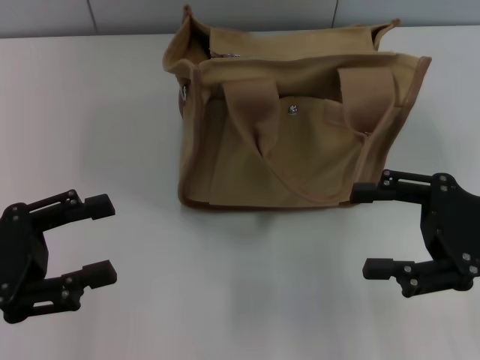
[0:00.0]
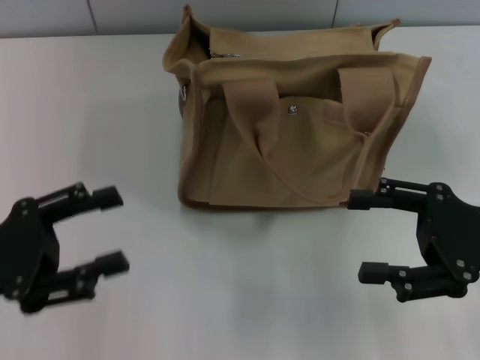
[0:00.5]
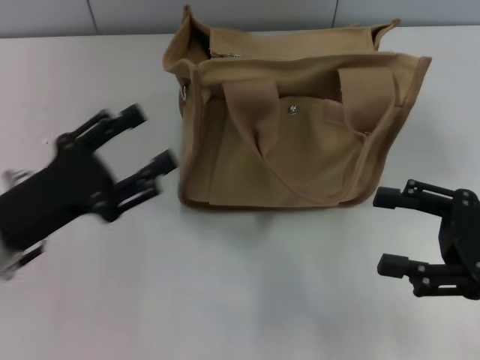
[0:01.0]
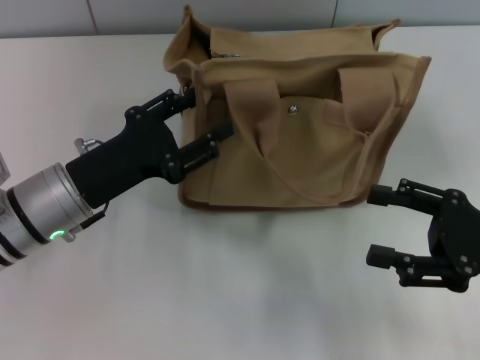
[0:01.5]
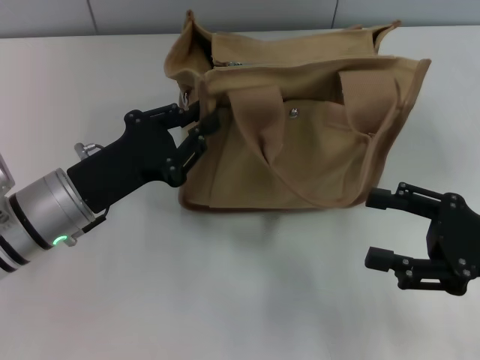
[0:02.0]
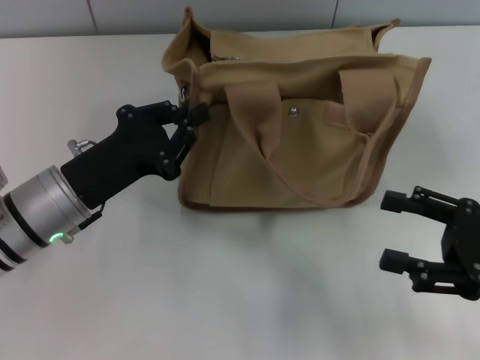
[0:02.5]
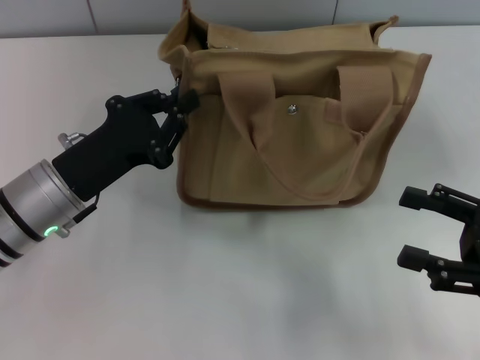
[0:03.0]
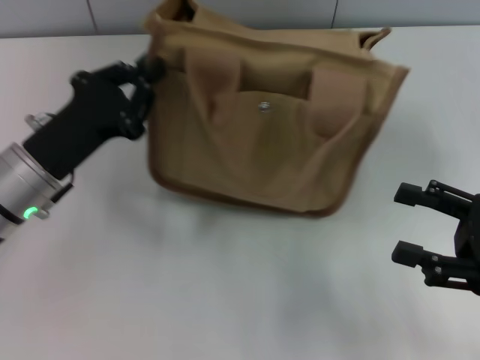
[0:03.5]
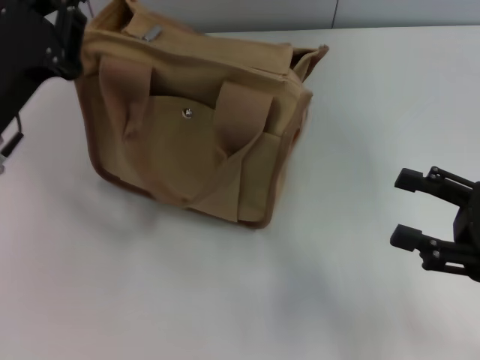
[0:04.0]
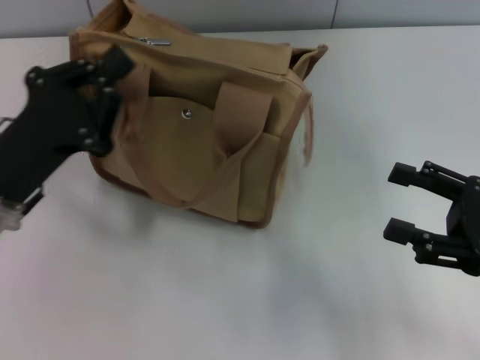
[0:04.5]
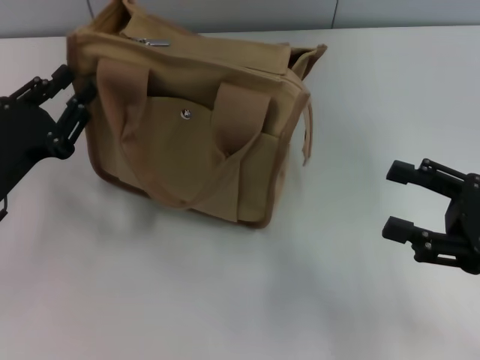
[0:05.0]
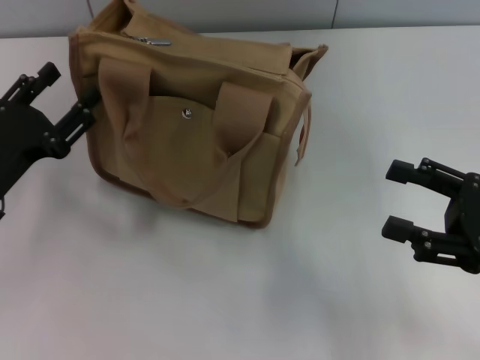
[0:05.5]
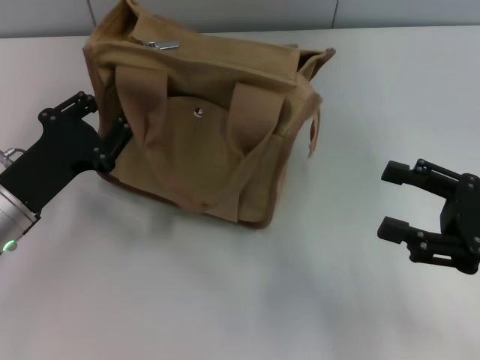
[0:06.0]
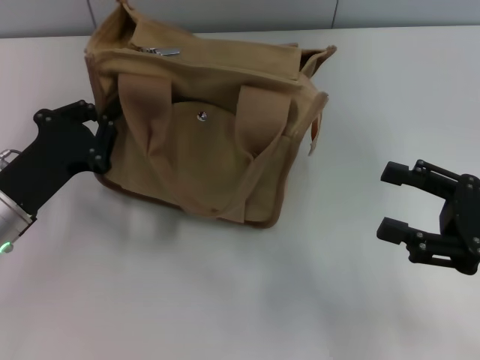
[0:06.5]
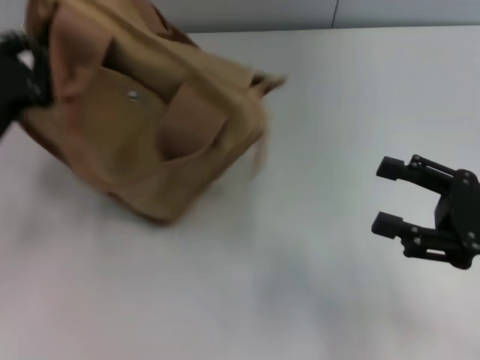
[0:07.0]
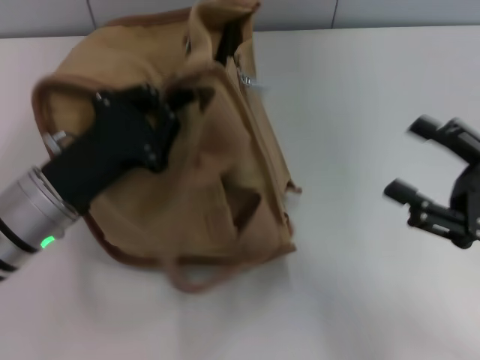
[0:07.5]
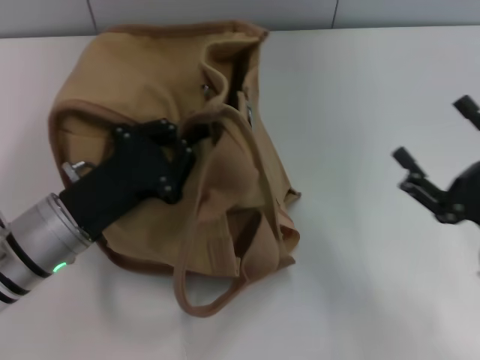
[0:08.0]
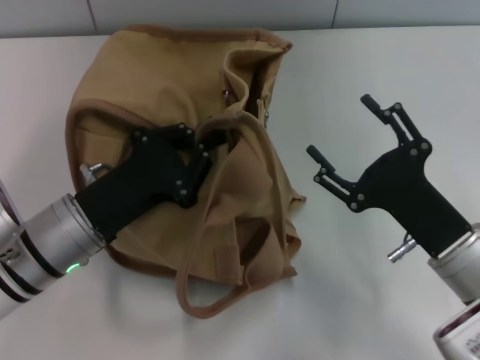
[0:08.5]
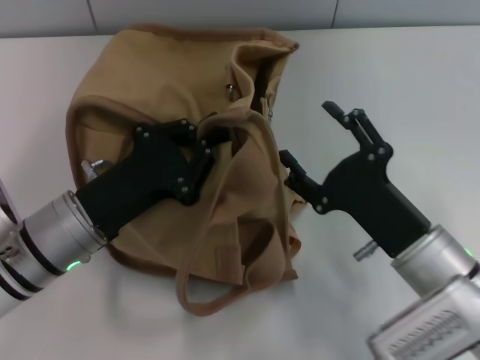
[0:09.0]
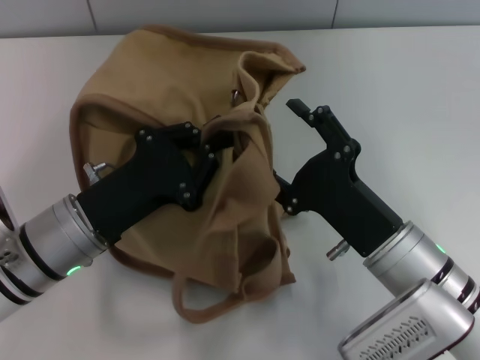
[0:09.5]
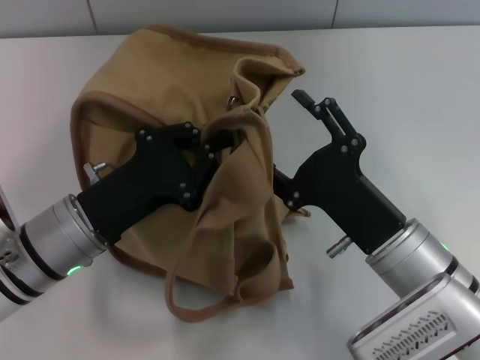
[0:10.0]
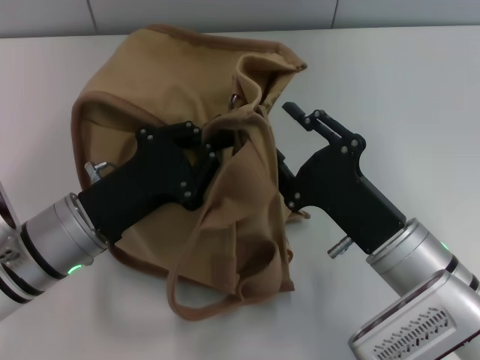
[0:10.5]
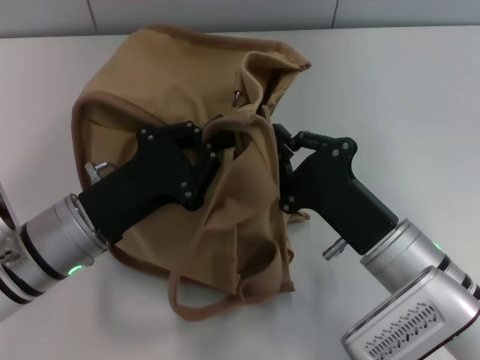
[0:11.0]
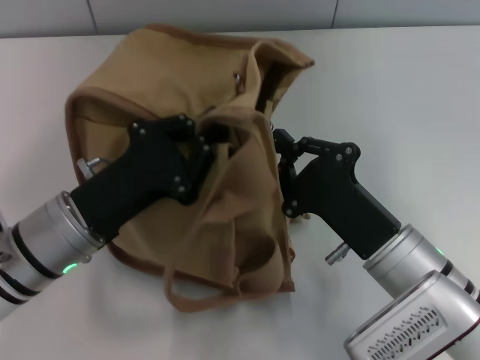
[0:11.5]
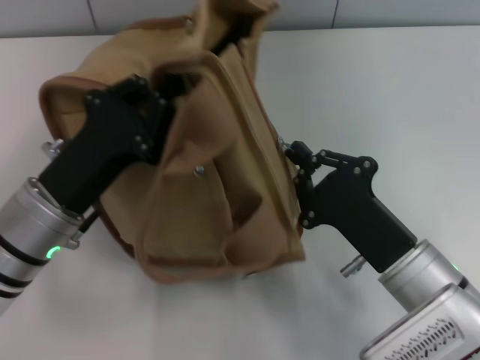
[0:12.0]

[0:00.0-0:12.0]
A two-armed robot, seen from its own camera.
0.0 to 2.0 s: The left gripper travels to the right and forward by about 15 cm, and closes up.
2.0 to 4.0 s: The left gripper heads upward, covering approximately 5 cm, and closes up.
4.0 to 6.0 s: The left gripper goes about 5 cm downward, and opens its fingers.
6.0 to 8.0 s: The right gripper shifts by approximately 5 cm. Meanwhile the left gripper is displaced to the right by some 5 cm, and closes up.
8.0 to 10.0 s: The right gripper moves to the left, approximately 10 cm.
10.0 to 12.0 s: The right gripper closes up.

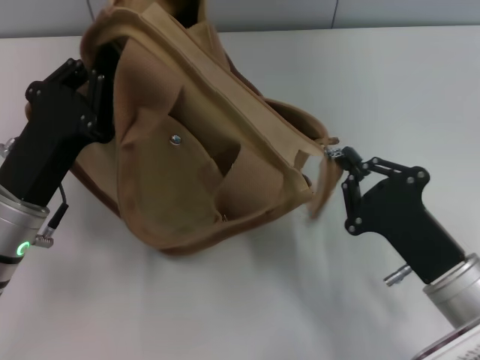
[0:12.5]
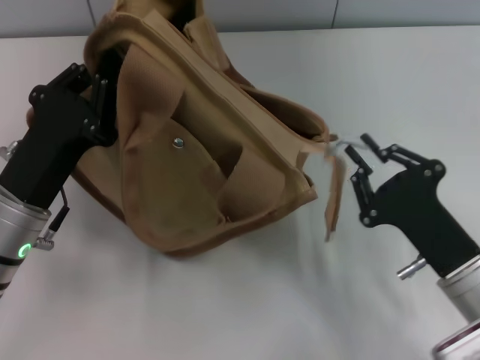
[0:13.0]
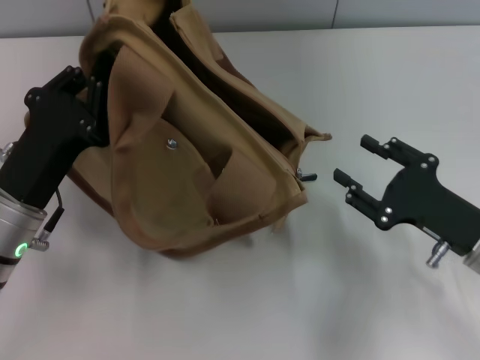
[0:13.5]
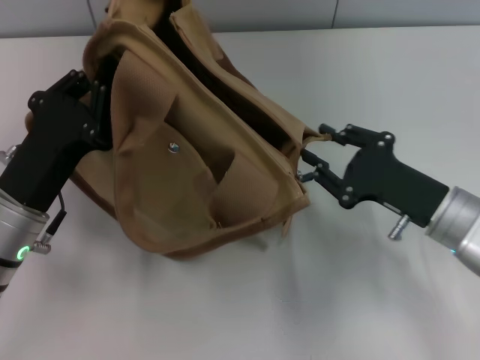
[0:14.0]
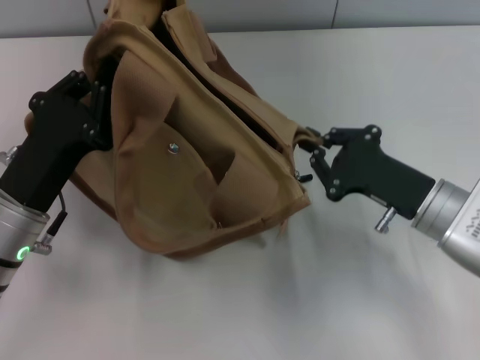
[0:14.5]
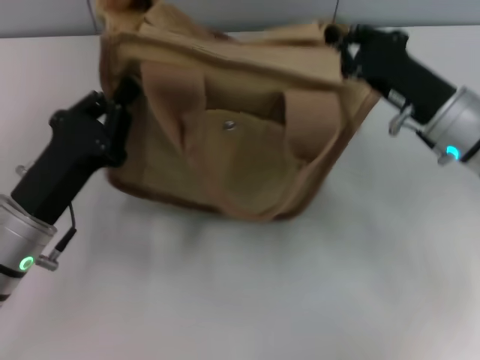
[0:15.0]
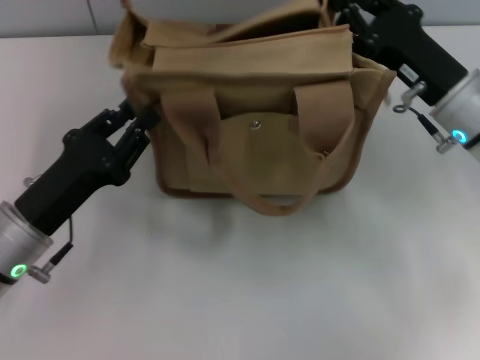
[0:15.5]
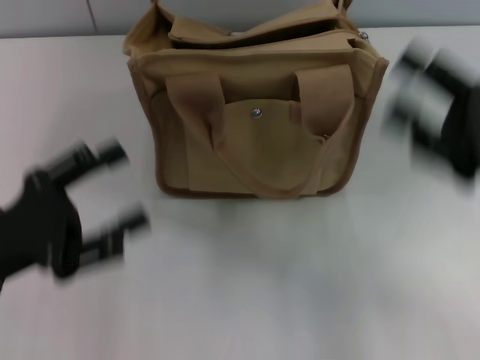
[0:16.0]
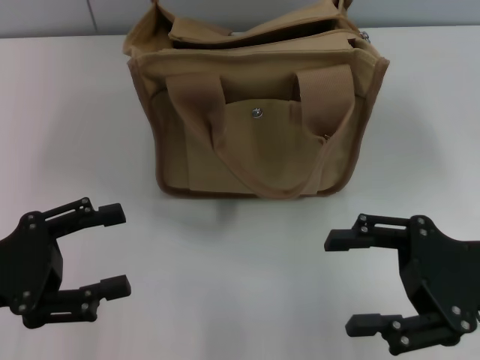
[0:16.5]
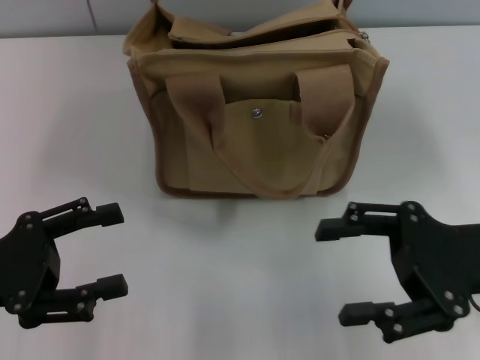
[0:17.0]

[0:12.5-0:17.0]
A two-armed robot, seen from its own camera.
Step, 13.5 to 15.5 s: Grab the bag with your left hand.
12.5 to 14.5 s: The right gripper shifts about 10 cm forward, and opens, then closes once more.
14.5 to 17.0 s: The left gripper travels to the left by approximately 10 cm, and opens. The right gripper heads upward, covering some 10 cm, goes forward and returns, some 5 cm each way, and opens up.

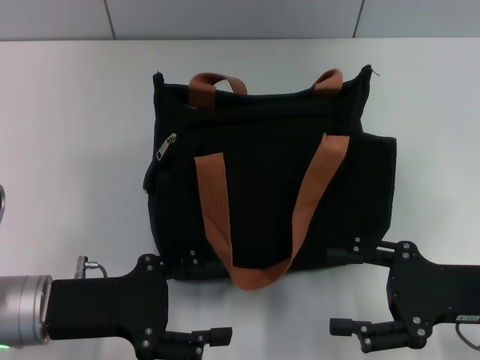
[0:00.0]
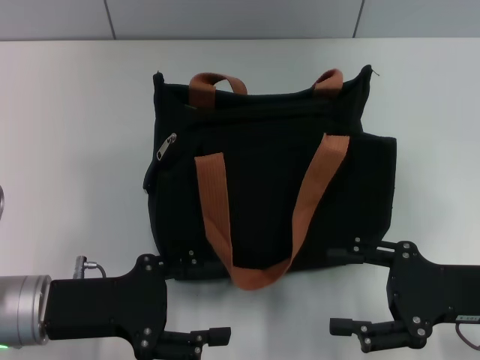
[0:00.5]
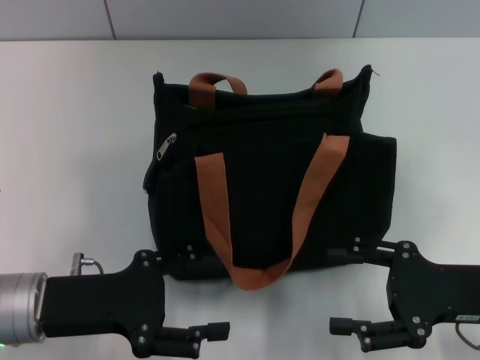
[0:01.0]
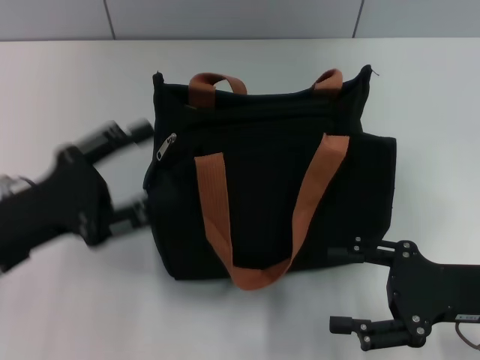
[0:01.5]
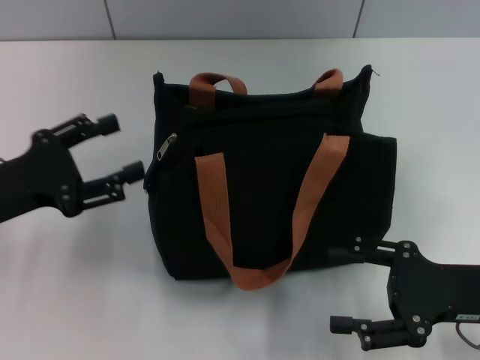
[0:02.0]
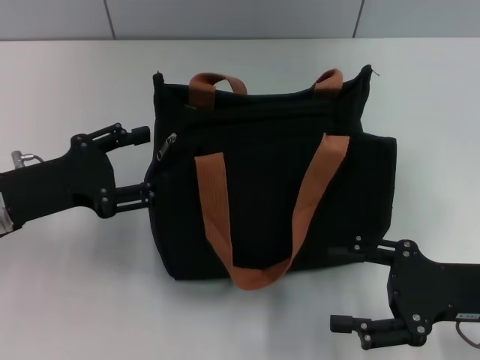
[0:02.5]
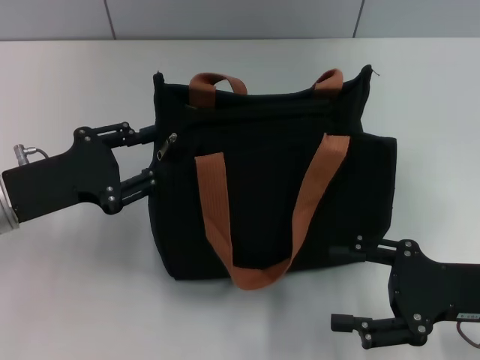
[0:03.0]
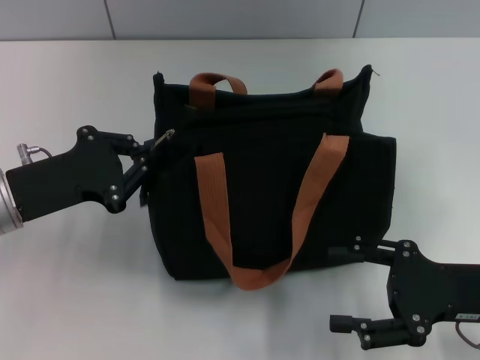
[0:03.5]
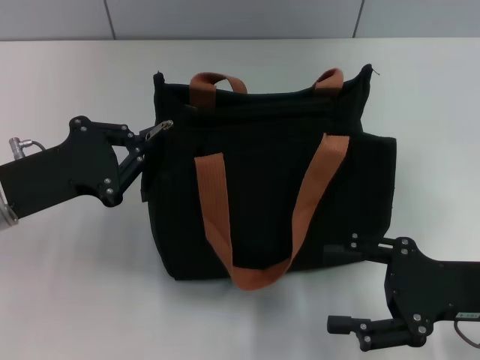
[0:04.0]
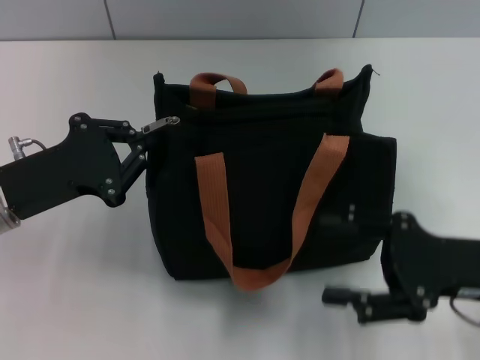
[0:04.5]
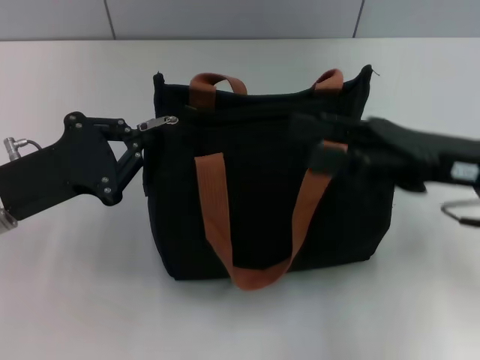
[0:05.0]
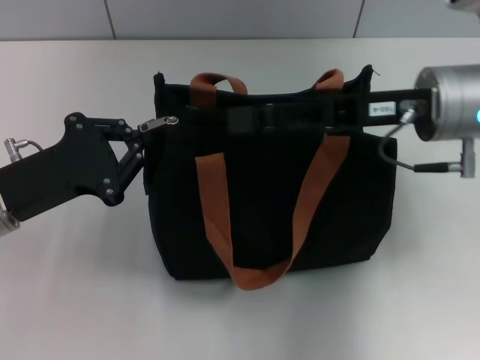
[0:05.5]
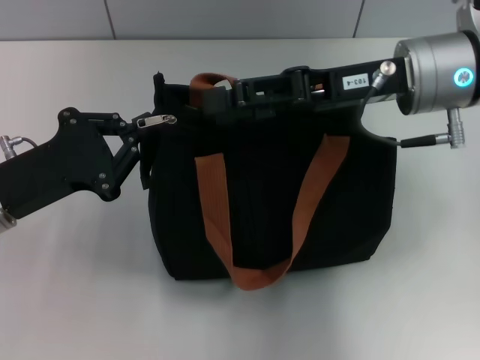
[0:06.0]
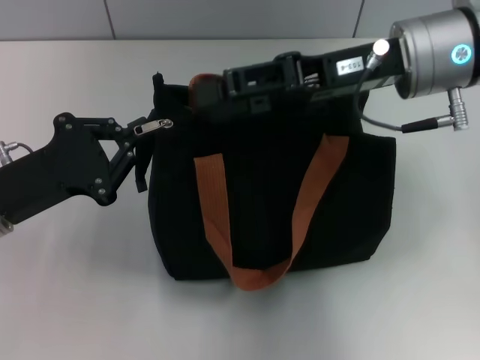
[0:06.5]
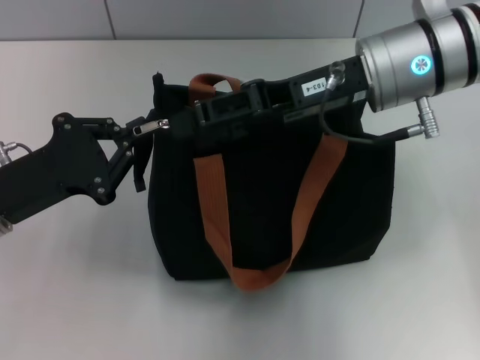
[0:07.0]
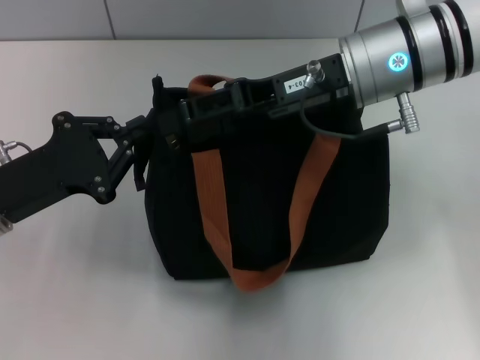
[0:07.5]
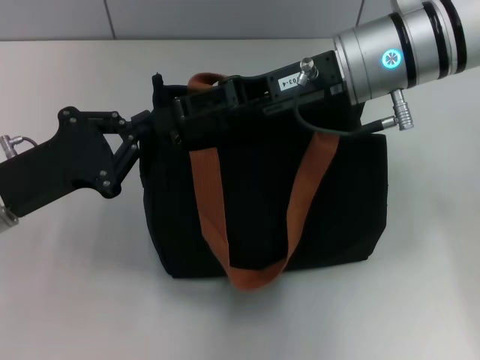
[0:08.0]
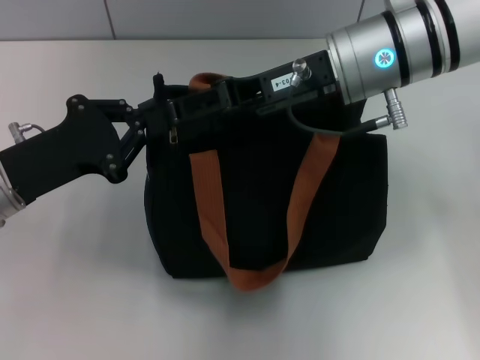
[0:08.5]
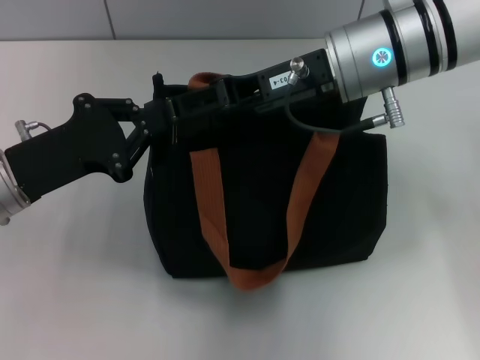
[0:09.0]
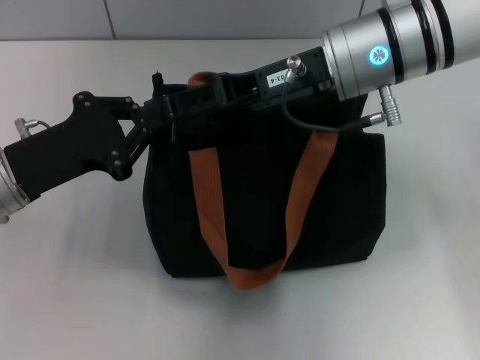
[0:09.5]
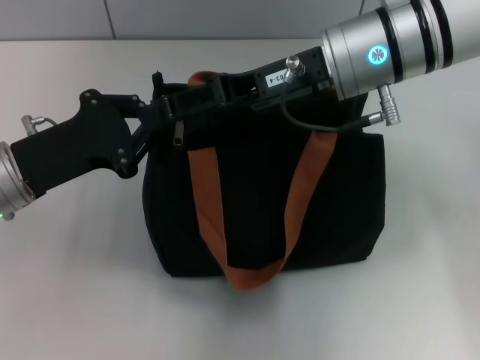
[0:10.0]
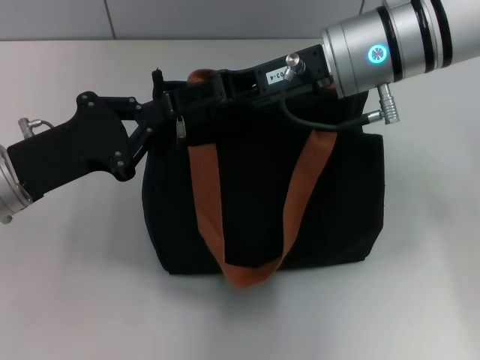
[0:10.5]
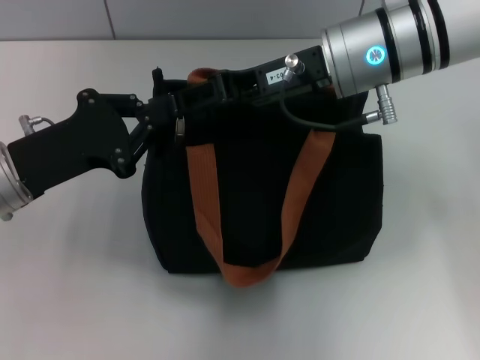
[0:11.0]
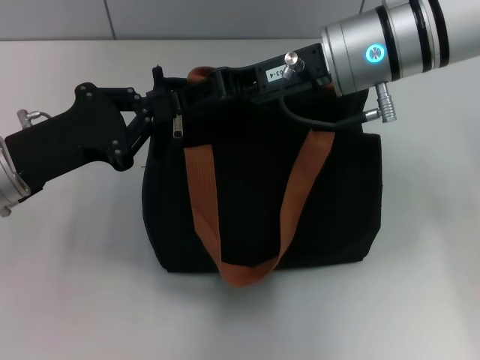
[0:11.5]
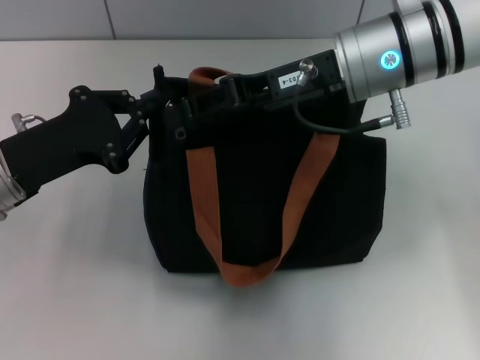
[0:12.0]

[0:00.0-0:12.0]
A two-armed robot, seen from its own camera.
0.0 to 2.0 s: The left gripper goes some 5 cm to the left.
2.0 to 4.0 s: The left gripper closes its fingers.
4.0 to 6.0 s: The right gripper goes about 20 cm forward, upward and to the left.
6.0 to 8.0 s: The right gripper shifts by roughly 5 cm.
8.0 to 10.0 s: The grippers make only small movements.
10.0 to 12.0 s: The right gripper closes.
